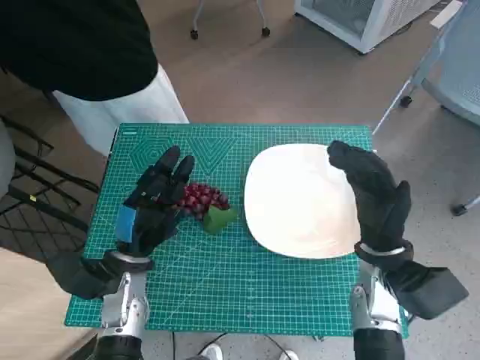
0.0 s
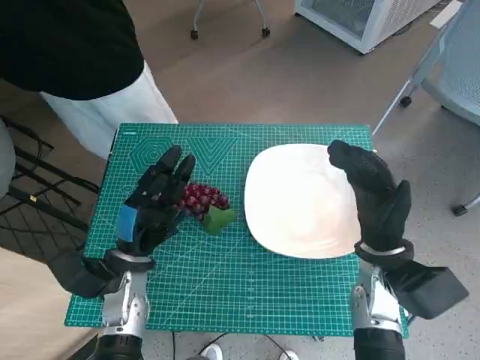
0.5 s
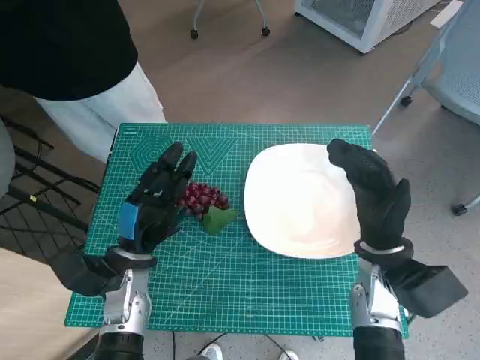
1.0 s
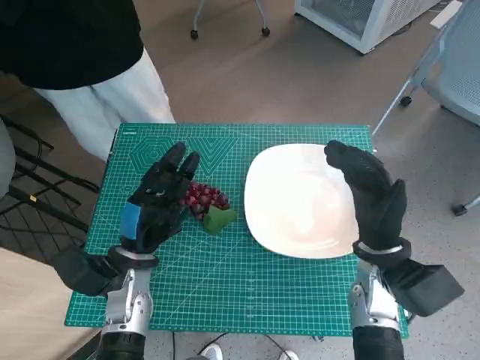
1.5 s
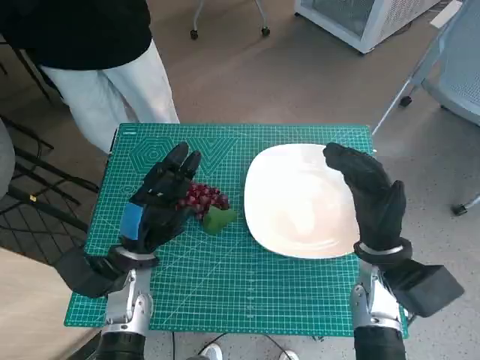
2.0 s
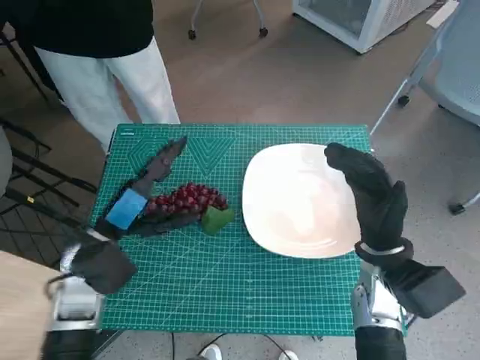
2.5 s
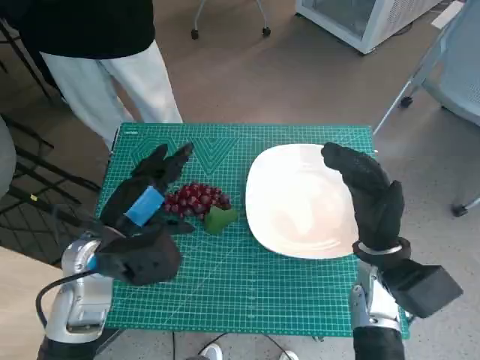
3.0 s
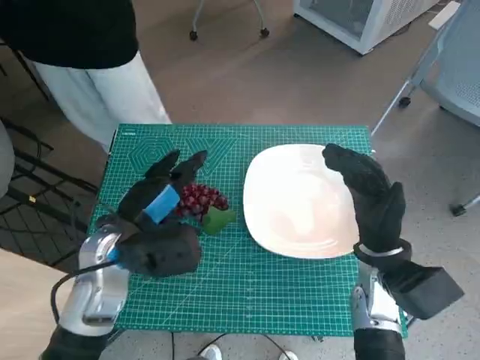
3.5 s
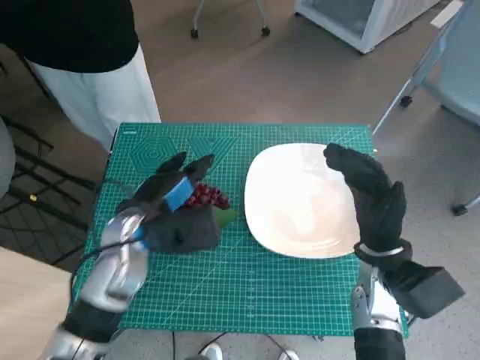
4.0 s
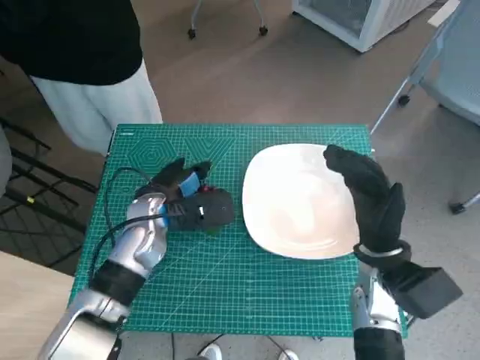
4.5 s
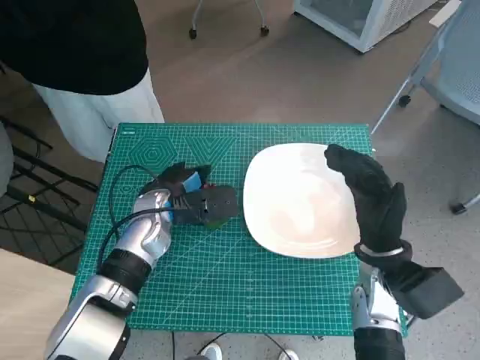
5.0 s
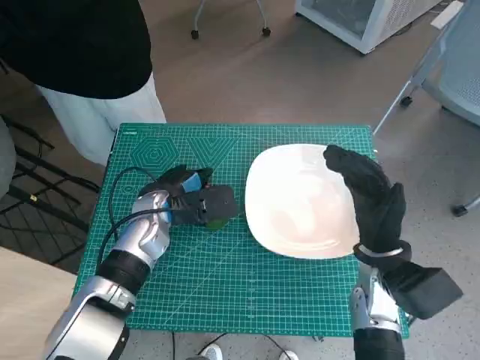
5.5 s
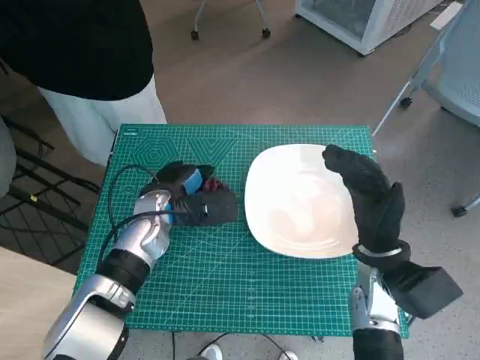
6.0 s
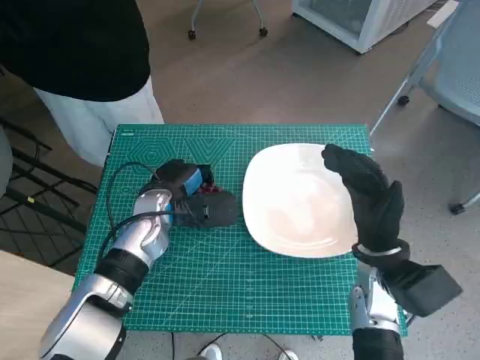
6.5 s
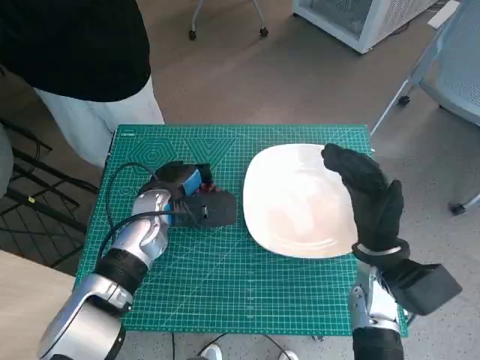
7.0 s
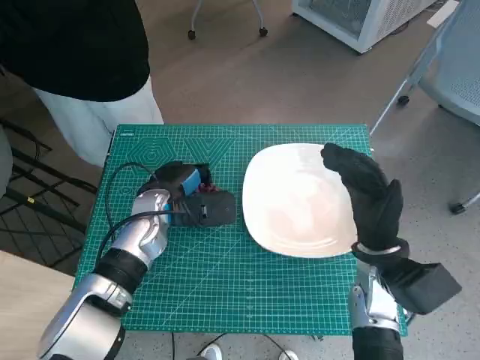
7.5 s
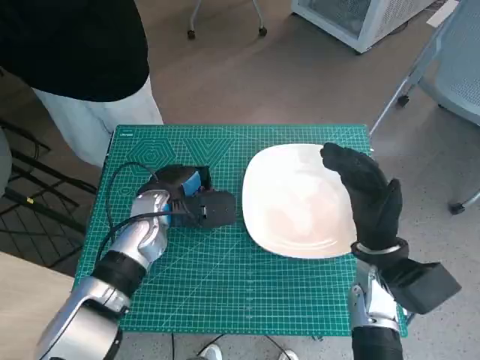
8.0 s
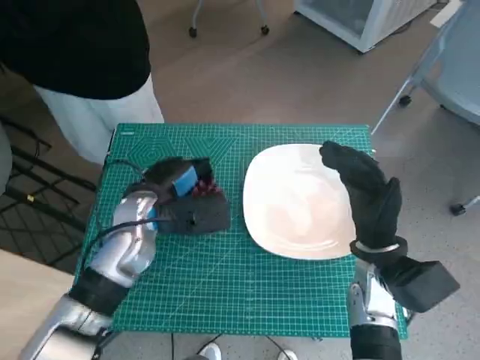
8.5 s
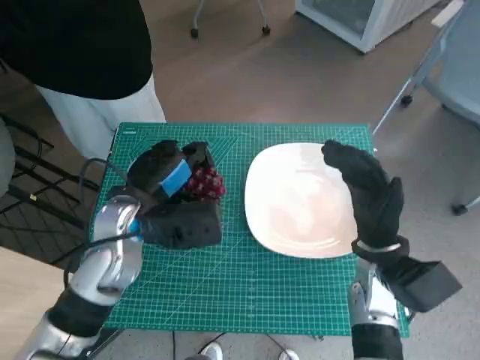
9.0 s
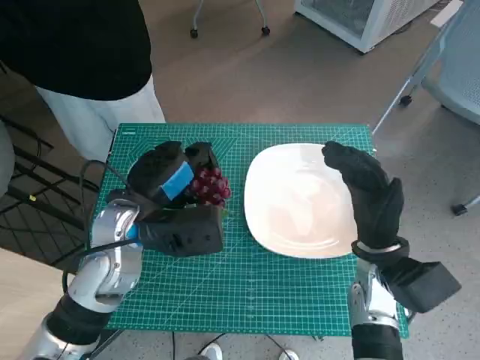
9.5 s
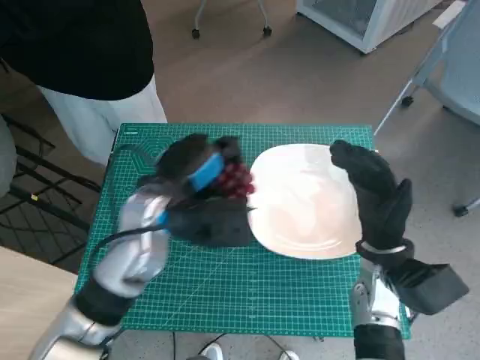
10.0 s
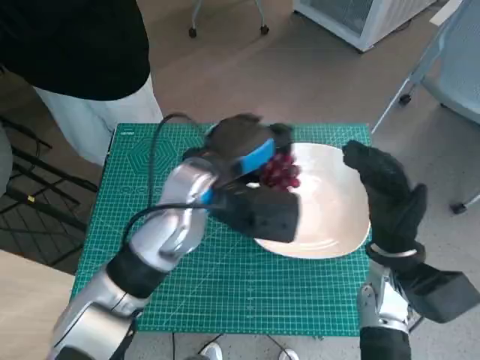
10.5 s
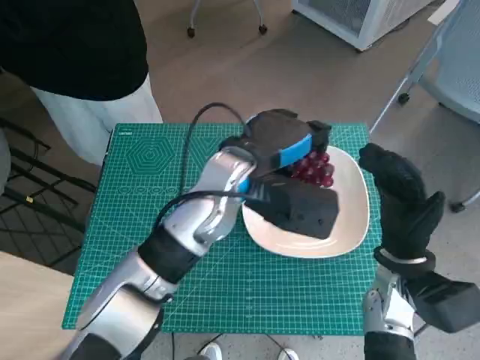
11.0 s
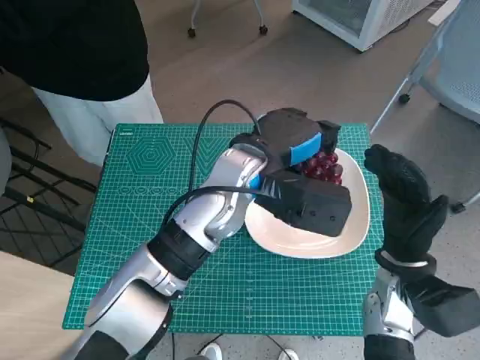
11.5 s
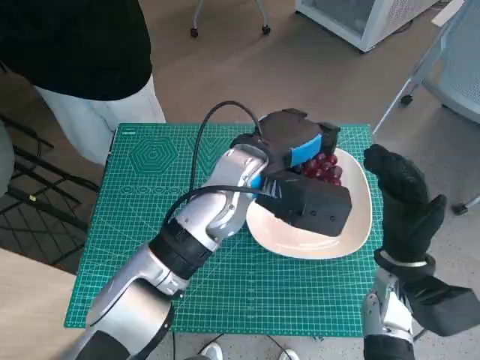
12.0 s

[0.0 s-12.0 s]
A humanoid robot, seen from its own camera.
Task of the whole recording: Pick up the grapes and put them on the plate.
Step, 0.0 to 5.0 s: Grasp the grapes with left hand.
2.0 to 4.0 s: The left hand travels upward by approximately 5 cm.
4.0 to 6.0 s: The left hand shifts roughly 5 cm forward.
6.0 to 8.0 s: The hands make only small movements.
8.0 to 10.0 s: The left hand goes about 5 cm upward.
10.0 to 12.0 s: The left hand shifts about 10 cm to the right.

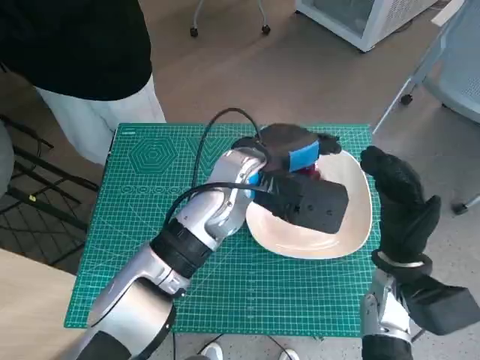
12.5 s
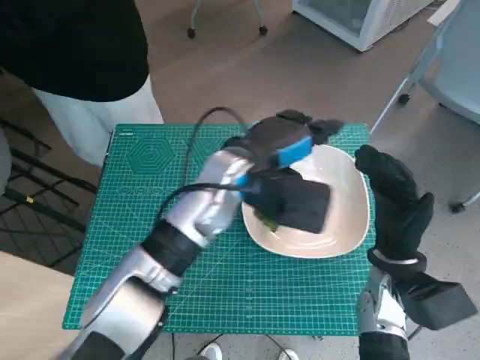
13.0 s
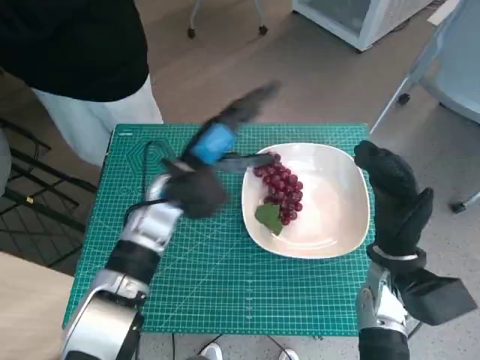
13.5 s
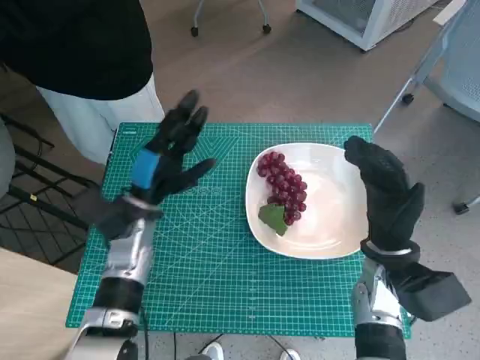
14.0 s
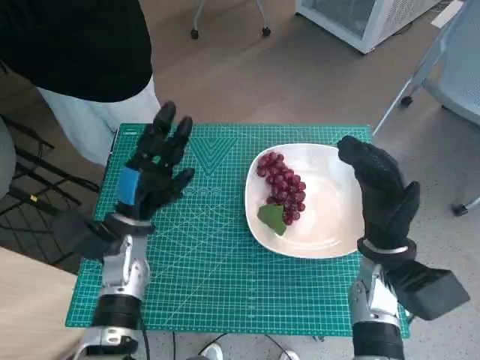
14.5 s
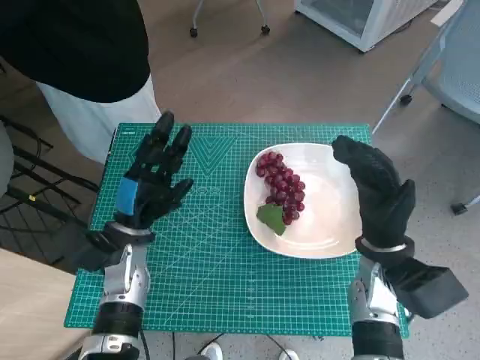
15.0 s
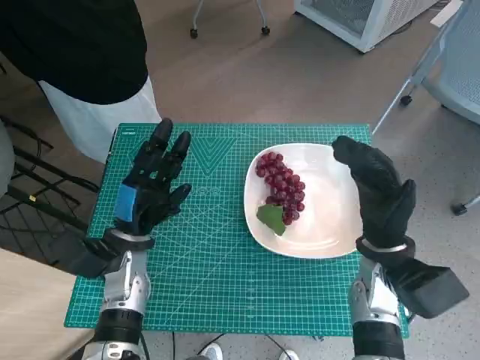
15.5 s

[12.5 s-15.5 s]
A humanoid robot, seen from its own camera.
Task of the whole recording: Pick up the grapes and put them on the plate.
12.5 to 14.0 s: The left hand shifts some 20 cm to the left and downward.
14.0 to 15.5 s: The left hand shifts by roughly 5 cm.

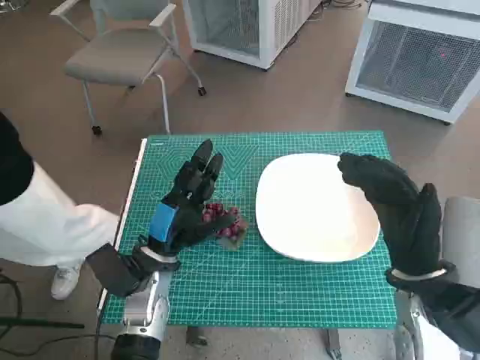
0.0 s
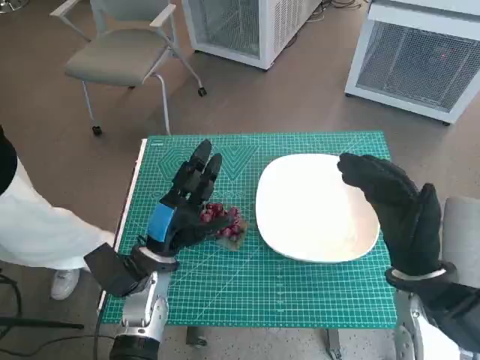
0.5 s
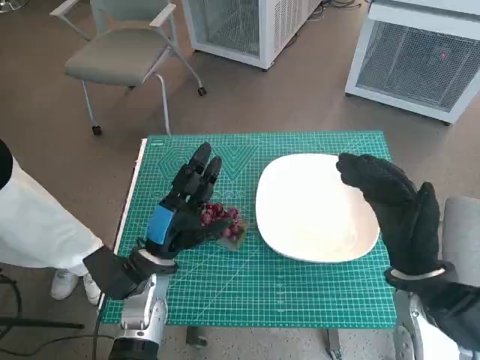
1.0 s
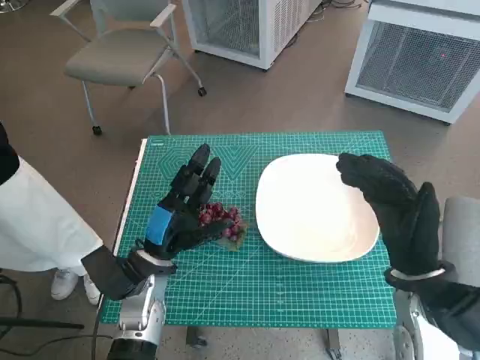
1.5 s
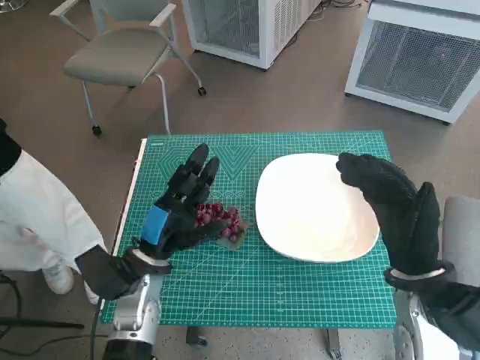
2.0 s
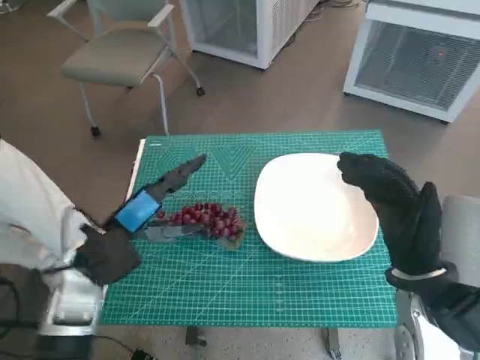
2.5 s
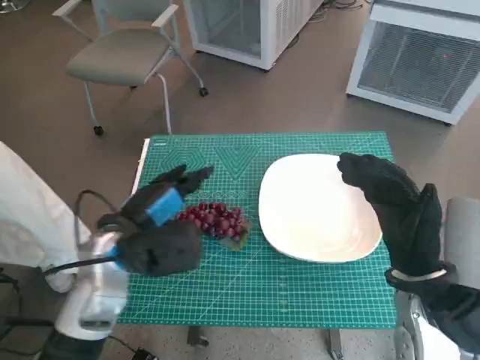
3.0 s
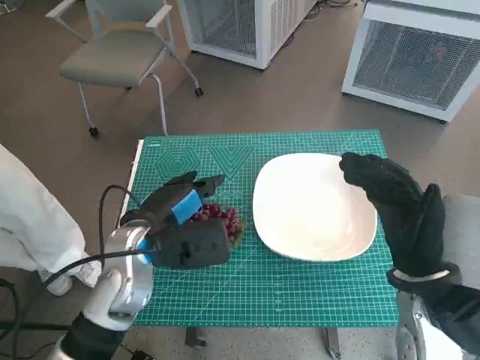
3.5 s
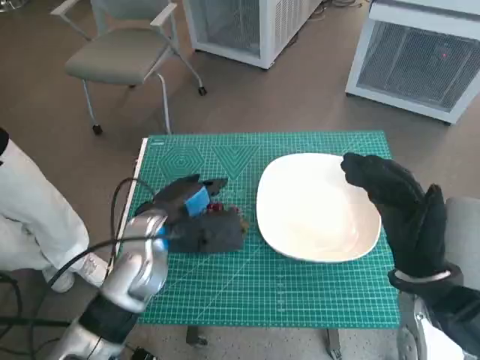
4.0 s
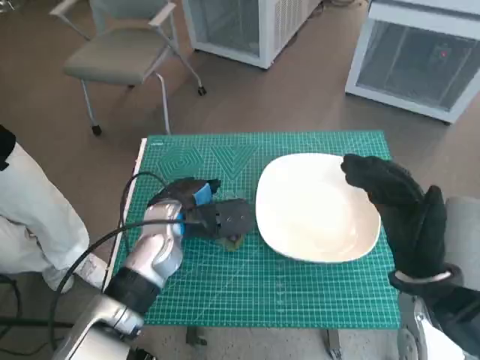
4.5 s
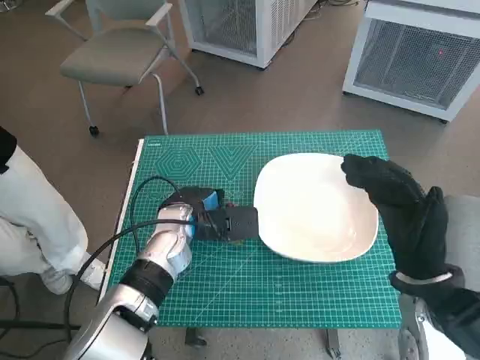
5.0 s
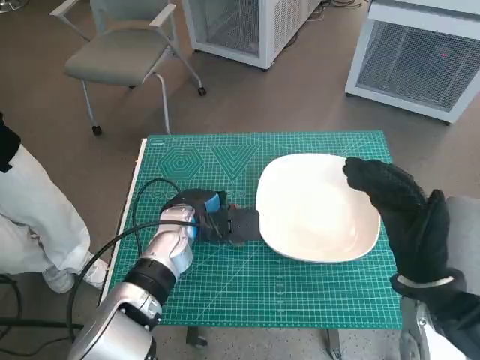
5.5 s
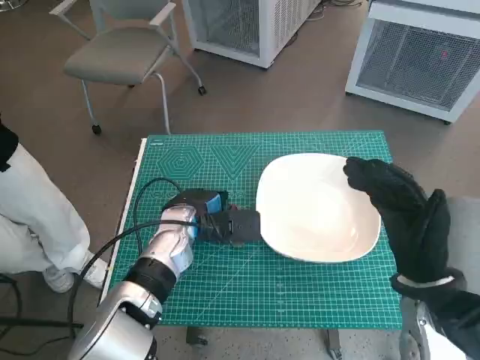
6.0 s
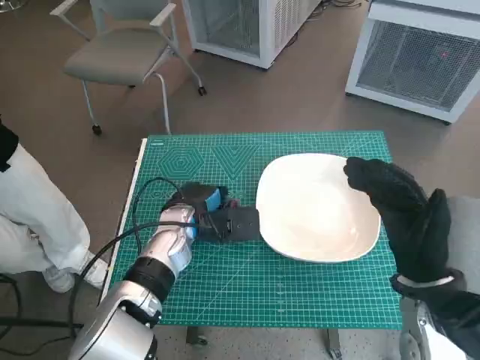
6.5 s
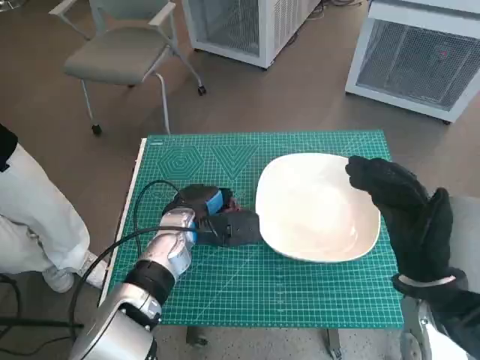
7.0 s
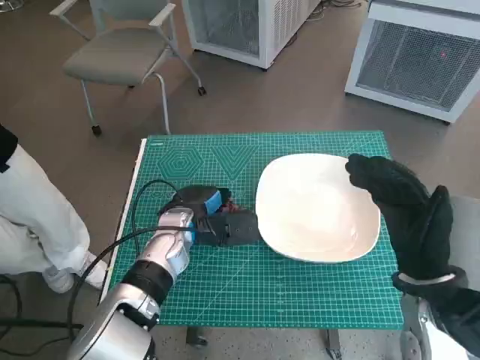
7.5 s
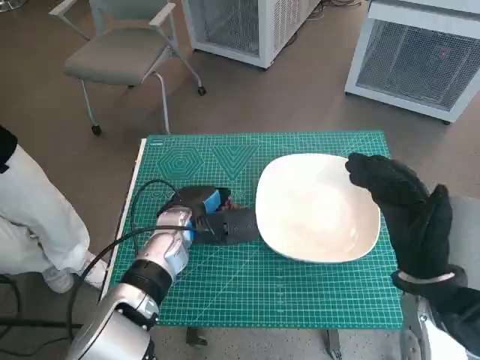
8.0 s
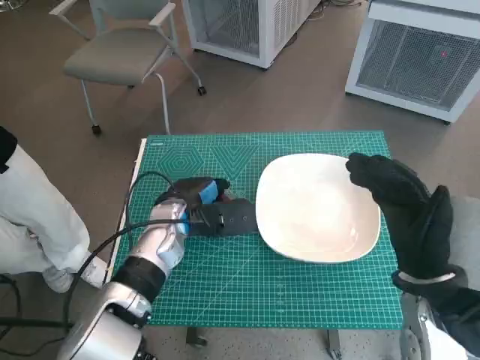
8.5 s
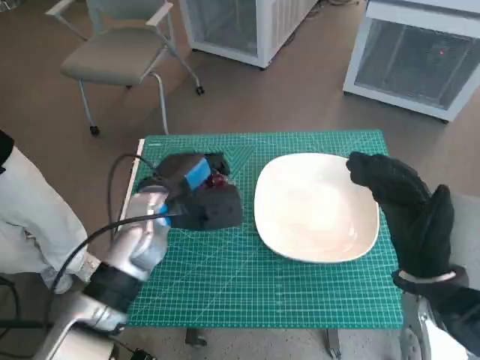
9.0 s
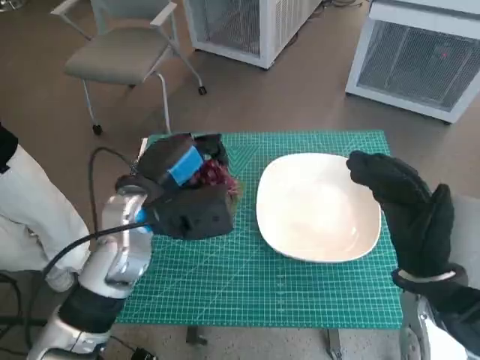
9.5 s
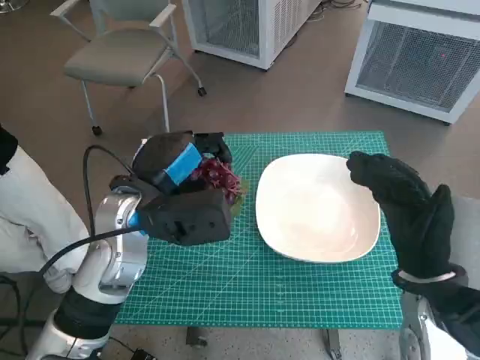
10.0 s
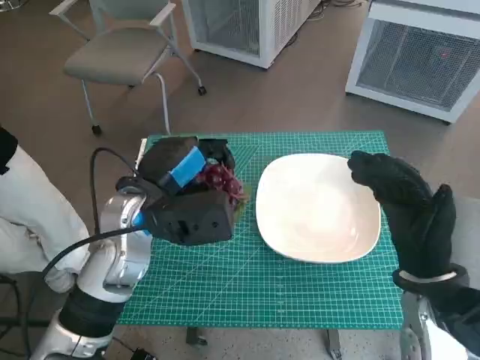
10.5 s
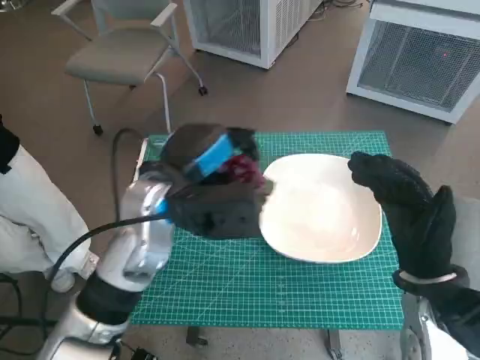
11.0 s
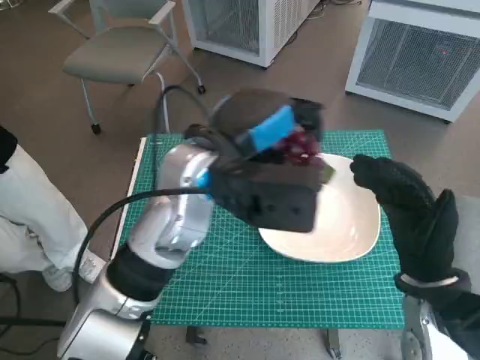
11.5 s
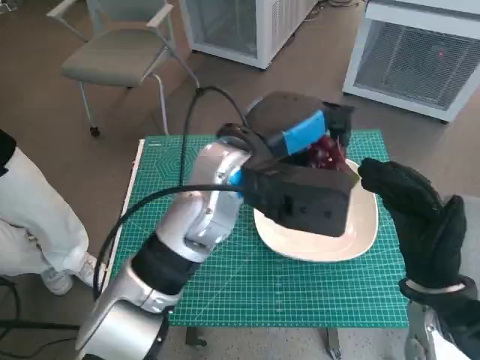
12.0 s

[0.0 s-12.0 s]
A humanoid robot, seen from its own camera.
Task of the whole recording: Pick up the grapes and put them on the plate.
Step, 0.0 to 7.5 s: Grasp the grapes with left hand.
2.0 to 4.0 s: The left hand goes roughly 5 cm upward.
4.0 to 6.0 s: The left hand ends up some 5 cm from where it was.
6.0 to 8.0 s: The hands make only small movements.
8.0 to 10.0 s: The left hand goes approximately 10 cm upward and backward.
10.0 to 12.0 s: The left hand heads to the right and upward, covering about 15 cm.
